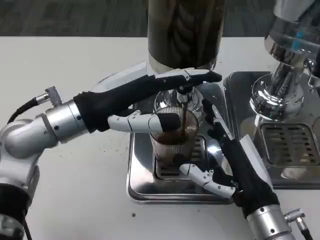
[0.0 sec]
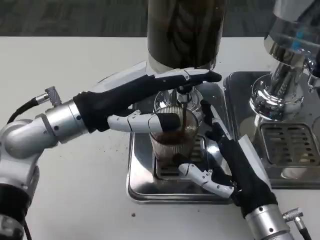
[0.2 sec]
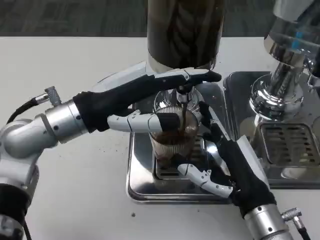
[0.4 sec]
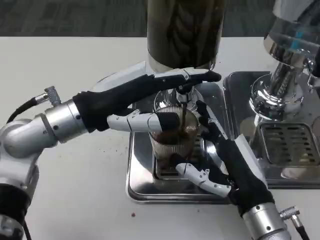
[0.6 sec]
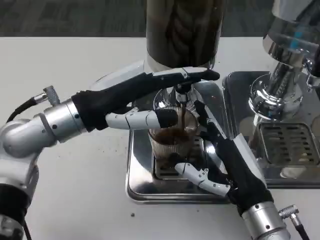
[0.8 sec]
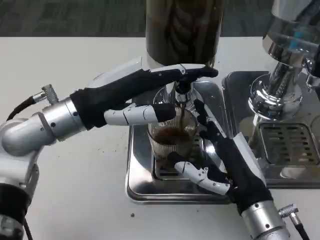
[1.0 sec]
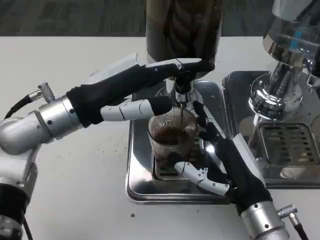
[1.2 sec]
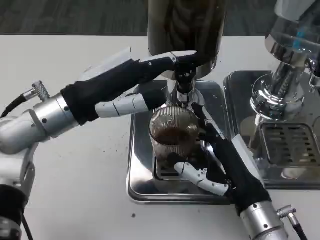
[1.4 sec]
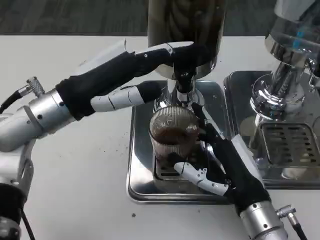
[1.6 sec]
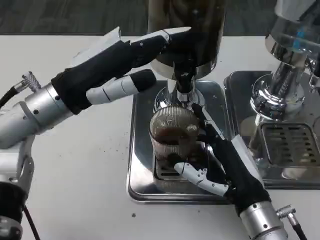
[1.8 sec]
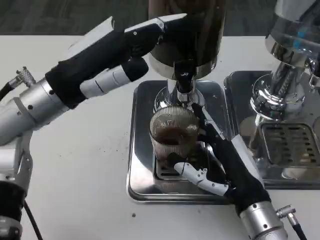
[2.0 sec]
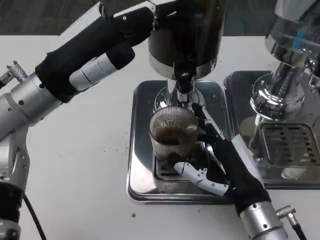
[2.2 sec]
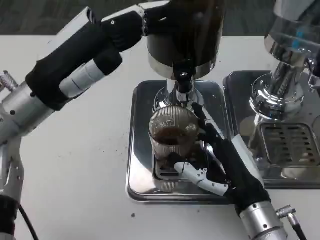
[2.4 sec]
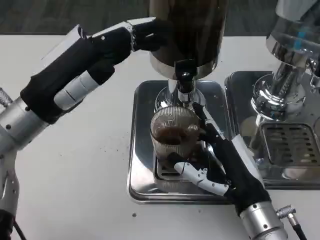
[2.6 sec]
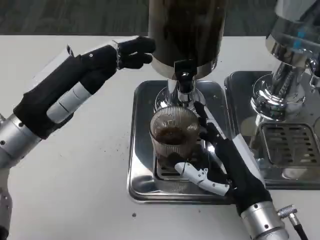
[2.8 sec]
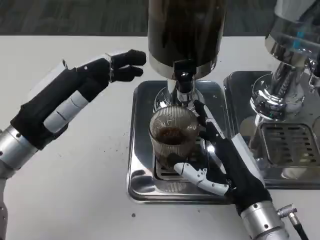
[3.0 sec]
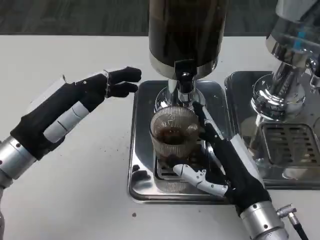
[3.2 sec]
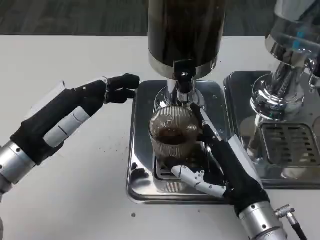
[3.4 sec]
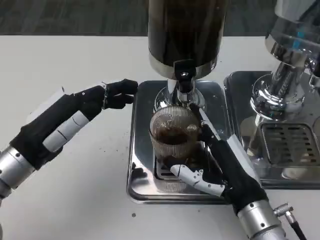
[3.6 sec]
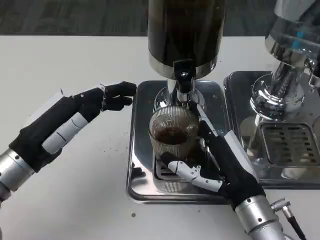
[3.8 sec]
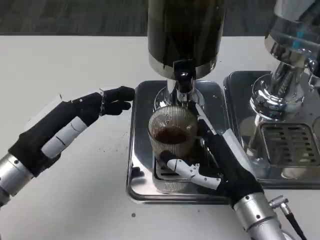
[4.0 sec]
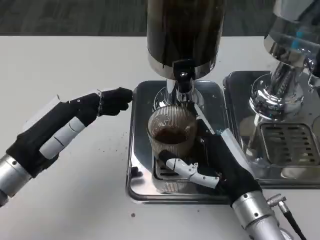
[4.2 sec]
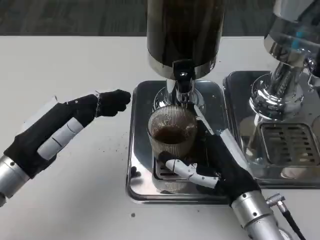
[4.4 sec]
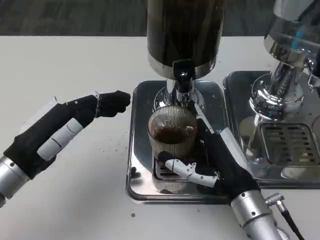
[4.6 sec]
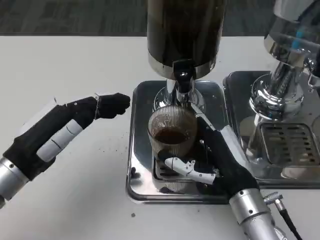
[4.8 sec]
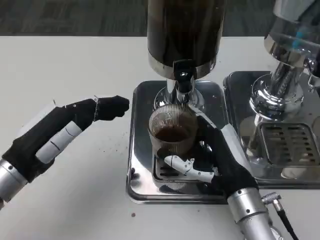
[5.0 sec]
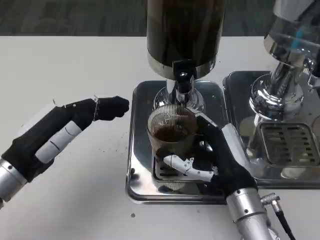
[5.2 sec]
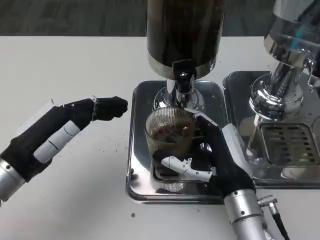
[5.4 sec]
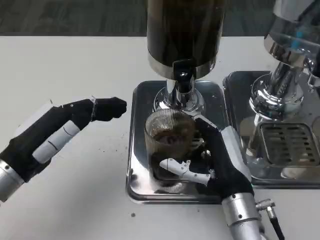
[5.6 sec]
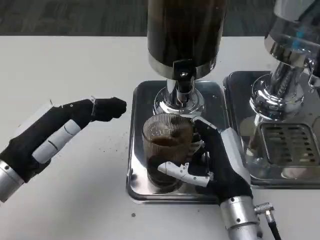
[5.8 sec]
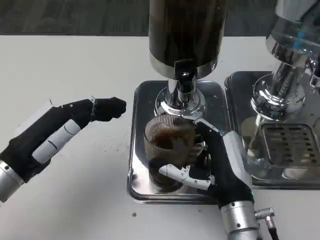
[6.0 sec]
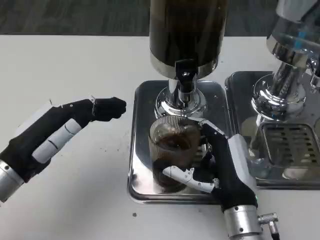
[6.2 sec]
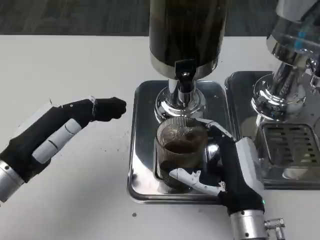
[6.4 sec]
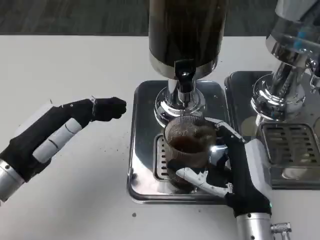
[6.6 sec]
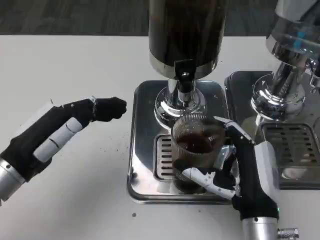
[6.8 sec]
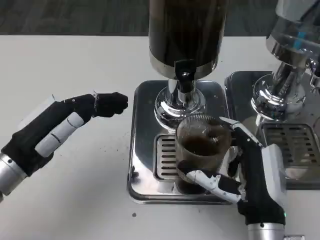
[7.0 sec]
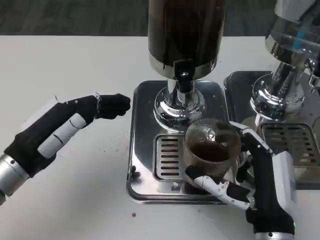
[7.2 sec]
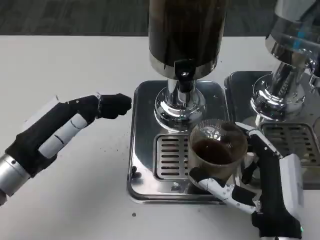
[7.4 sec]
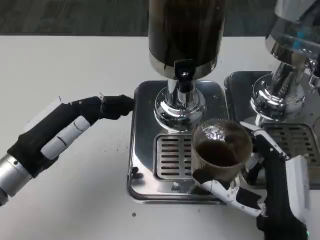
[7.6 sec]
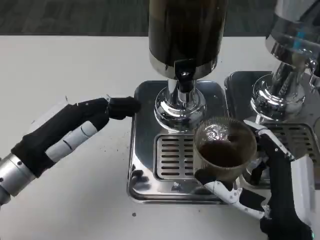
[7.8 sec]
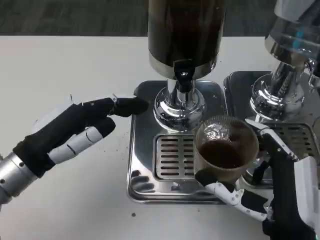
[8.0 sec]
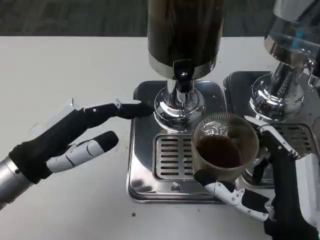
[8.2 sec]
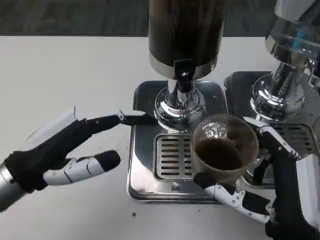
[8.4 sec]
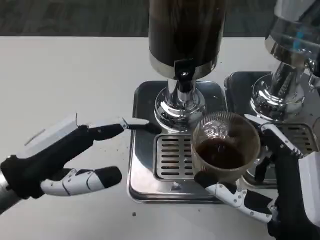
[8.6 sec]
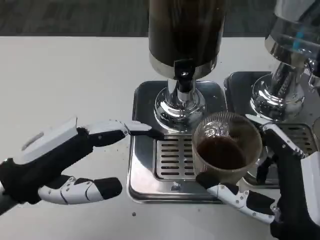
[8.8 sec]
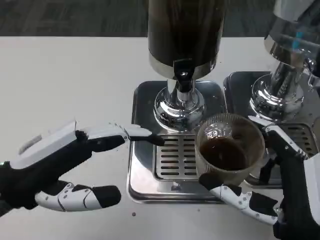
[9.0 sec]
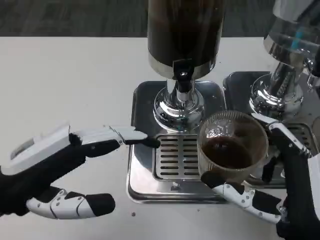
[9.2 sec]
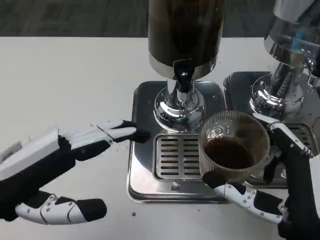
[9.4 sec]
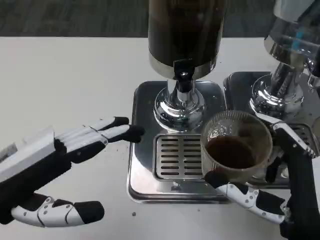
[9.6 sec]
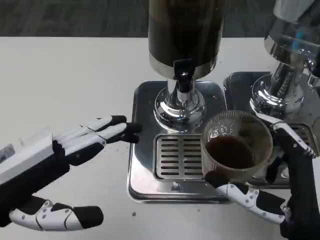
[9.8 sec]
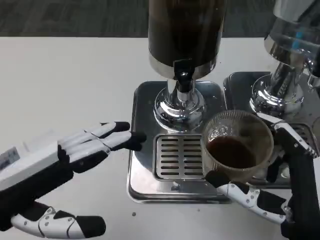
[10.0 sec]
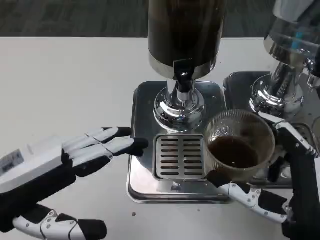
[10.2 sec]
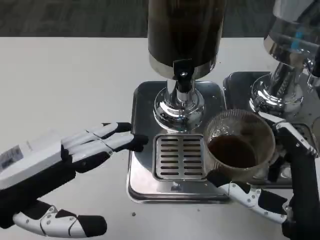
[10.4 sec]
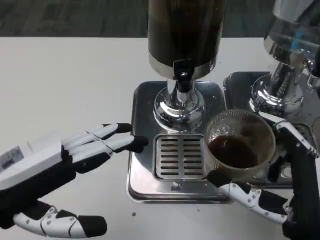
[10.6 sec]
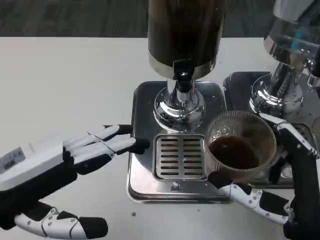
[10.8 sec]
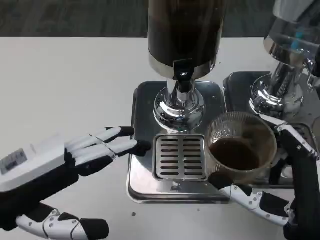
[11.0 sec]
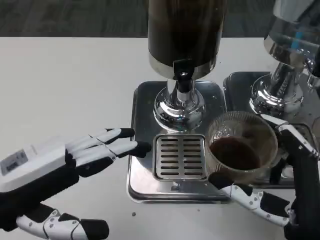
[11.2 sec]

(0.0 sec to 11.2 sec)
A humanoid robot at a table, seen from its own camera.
Task of the whole recording: Grasp the cup under the faucet to collect the drink, then remove the cup.
1.6 sec - 3.2 sec: The left hand moves downward and to the left, approximately 5 cm.
4.8 sec - 6.4 sec: The hands move only a little.
6.4 sec - 8.0 sec: The right hand is displaced backward by roughly 5 cm.
8.0 sec - 9.6 sec: The left hand goes some 5 cm backward.
9.6 sec - 11.2 sec: There are only small adjustments of the hands.

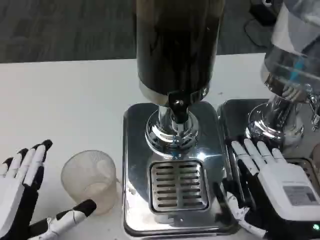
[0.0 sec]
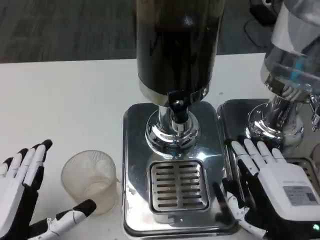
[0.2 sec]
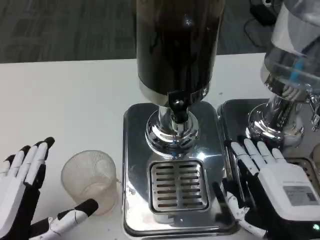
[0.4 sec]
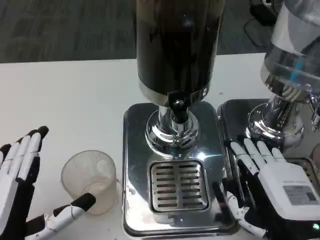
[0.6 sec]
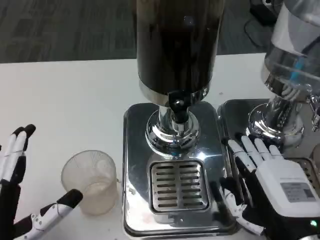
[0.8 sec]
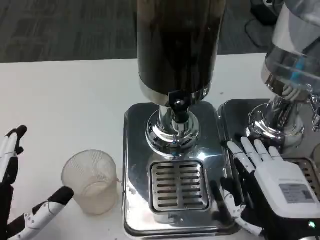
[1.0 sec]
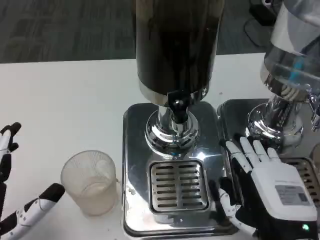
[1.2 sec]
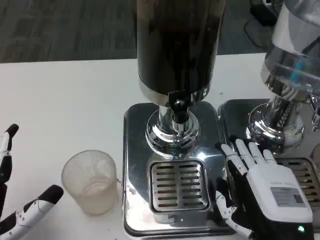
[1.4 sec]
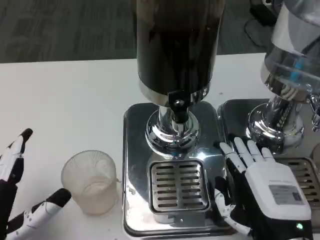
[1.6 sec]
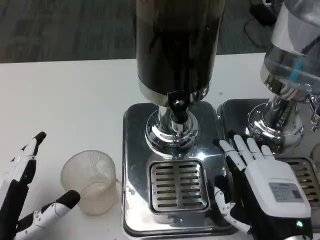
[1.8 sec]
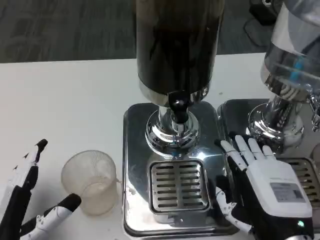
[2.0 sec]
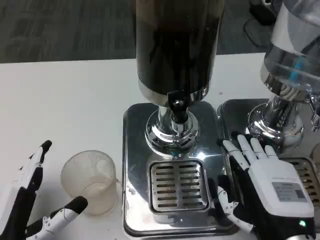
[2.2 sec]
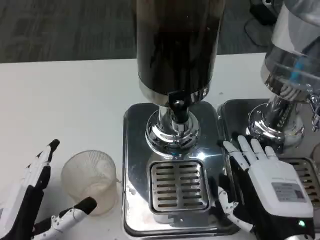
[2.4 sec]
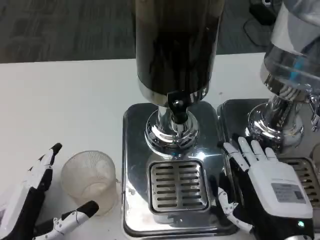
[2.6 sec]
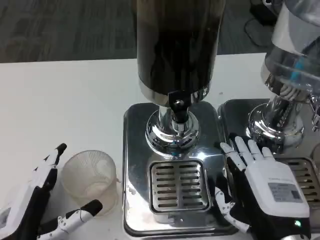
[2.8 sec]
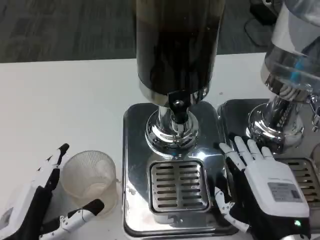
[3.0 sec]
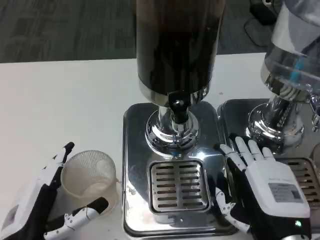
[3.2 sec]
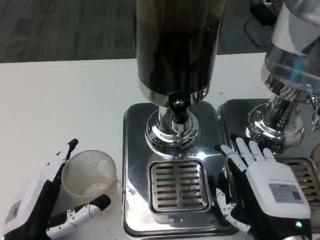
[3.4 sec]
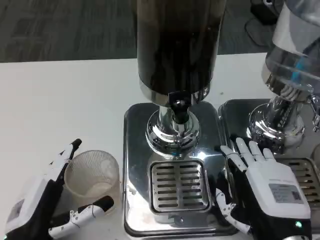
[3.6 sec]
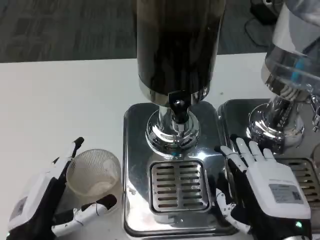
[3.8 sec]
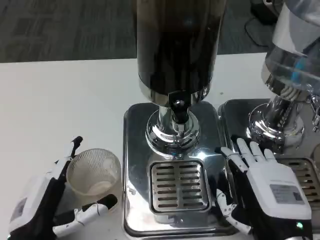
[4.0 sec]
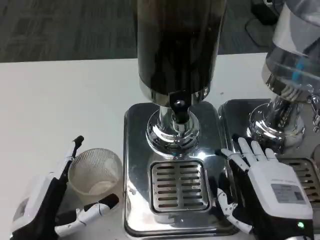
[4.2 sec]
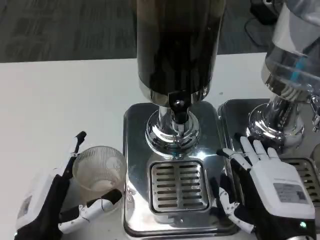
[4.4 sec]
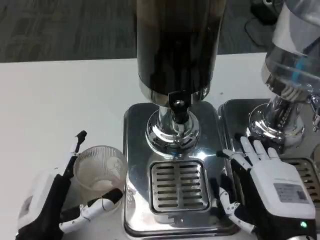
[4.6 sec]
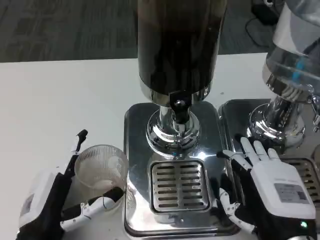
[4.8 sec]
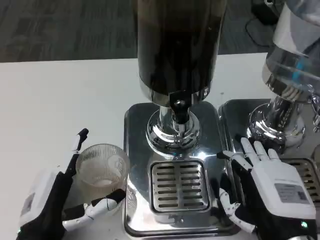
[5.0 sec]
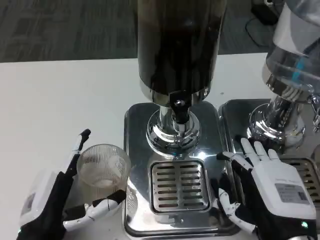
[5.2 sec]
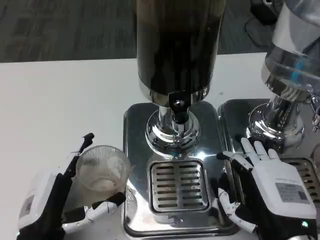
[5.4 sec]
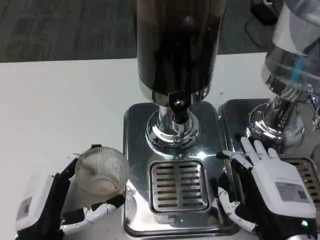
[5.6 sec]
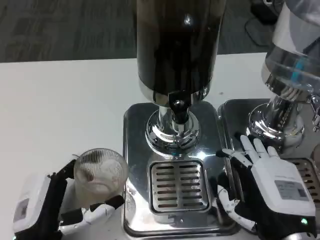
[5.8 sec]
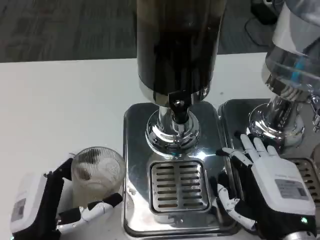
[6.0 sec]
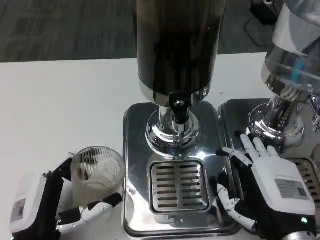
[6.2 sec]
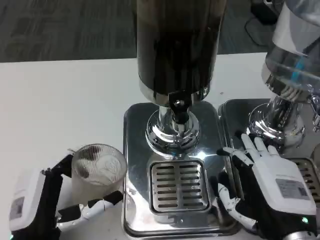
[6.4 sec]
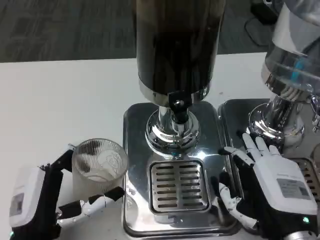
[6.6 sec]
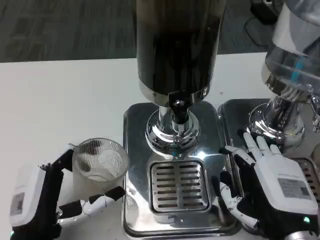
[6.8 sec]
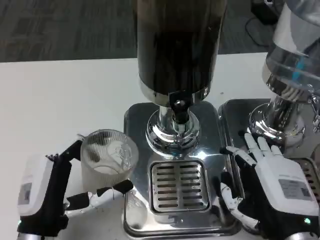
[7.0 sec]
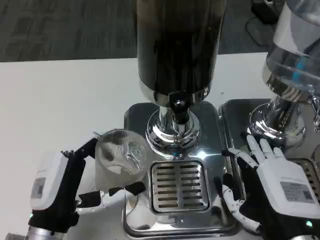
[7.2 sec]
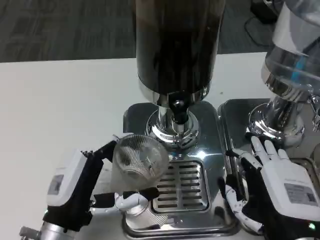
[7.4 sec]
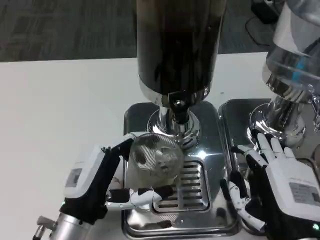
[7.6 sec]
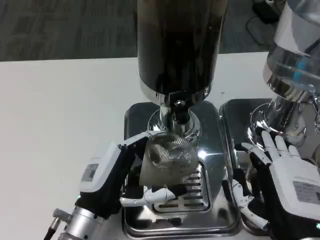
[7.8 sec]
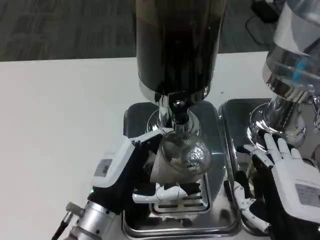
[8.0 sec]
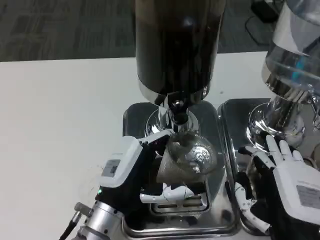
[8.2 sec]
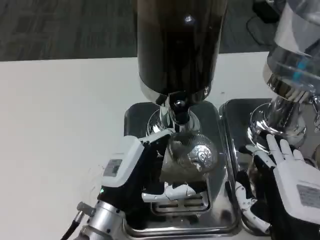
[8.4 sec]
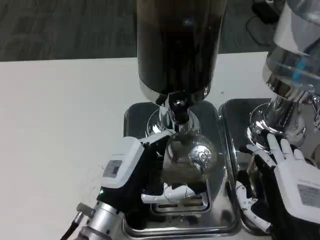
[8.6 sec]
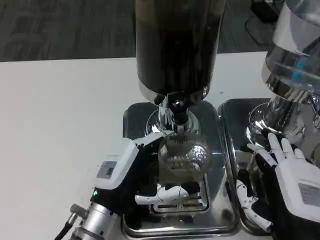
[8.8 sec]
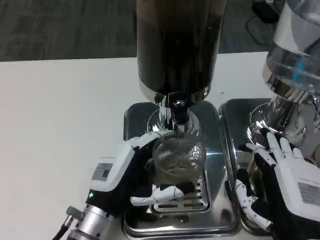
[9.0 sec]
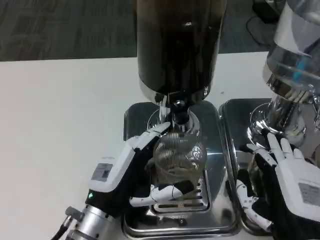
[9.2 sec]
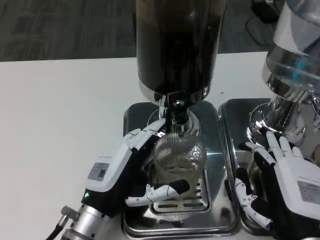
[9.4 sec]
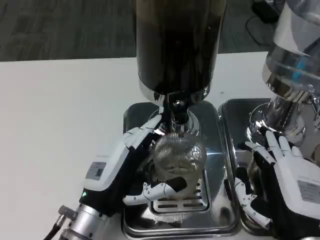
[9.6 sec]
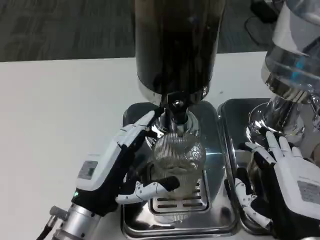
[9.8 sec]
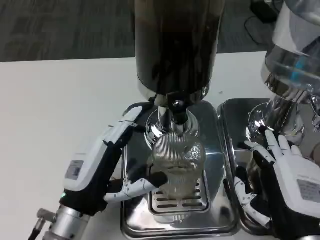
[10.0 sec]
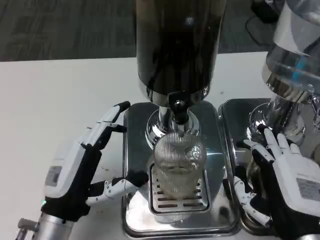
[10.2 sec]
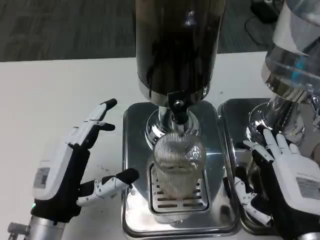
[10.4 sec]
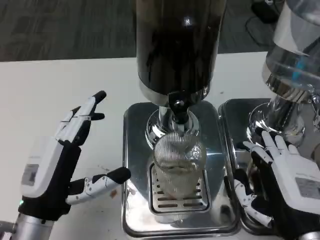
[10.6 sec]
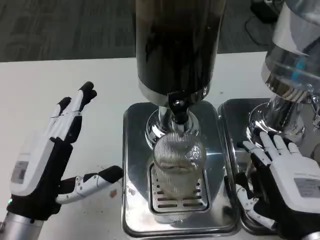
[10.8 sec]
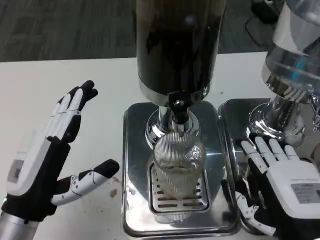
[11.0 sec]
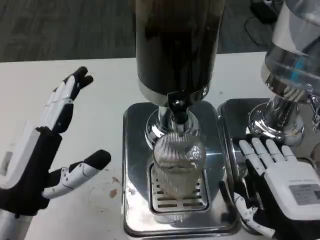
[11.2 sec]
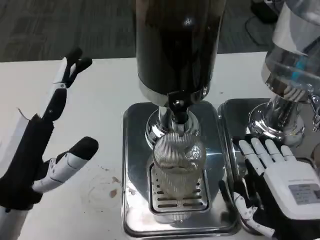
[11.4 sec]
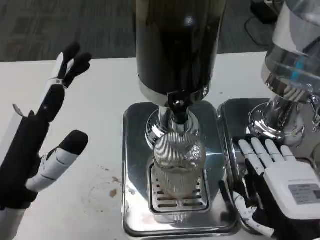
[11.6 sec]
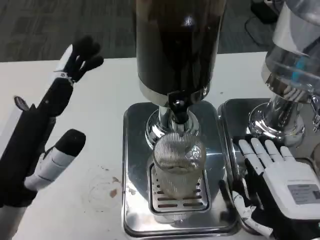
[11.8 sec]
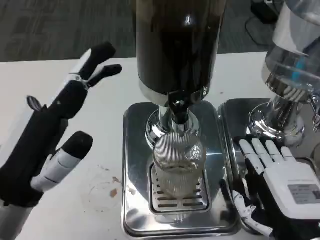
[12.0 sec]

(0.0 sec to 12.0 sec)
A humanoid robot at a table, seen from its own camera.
Task of the whole recording: Grasp the cup under the faucet to collect the drink, then remove the cup.
1.6 sec - 3.0 sec: There are only small adjustments of the hands.
3.0 sec - 6.0 sec: There are only small adjustments of the hands.
6.0 sec - 7.6 sec: The left hand shifts by roughly 5 cm.
7.6 sec - 9.0 sec: The hands move only a little.
9.0 sec - 10.4 sec: The left hand moves to the left, approximately 5 cm.
10.4 sec - 12.0 sec: The left hand is displaced upward by roughly 10 cm.
